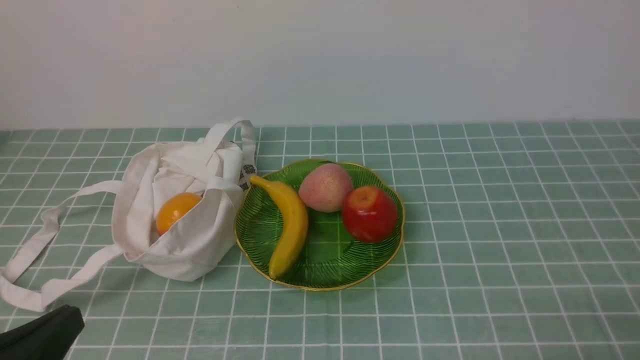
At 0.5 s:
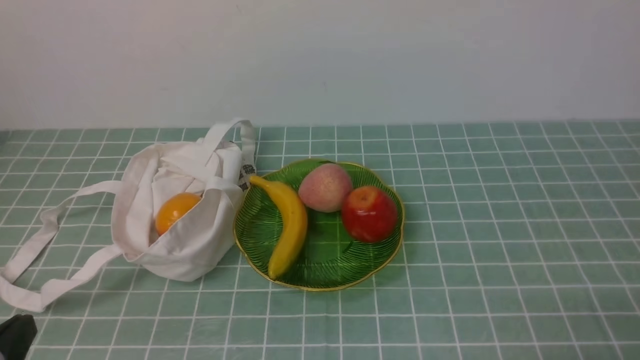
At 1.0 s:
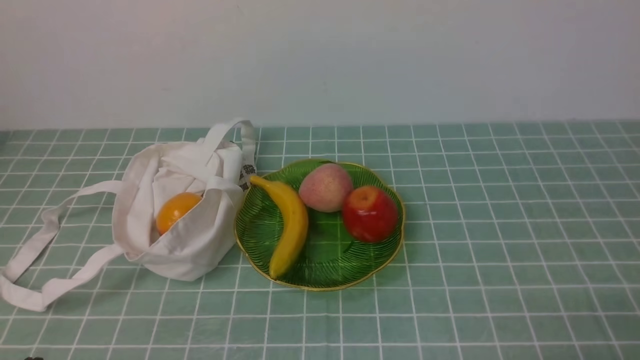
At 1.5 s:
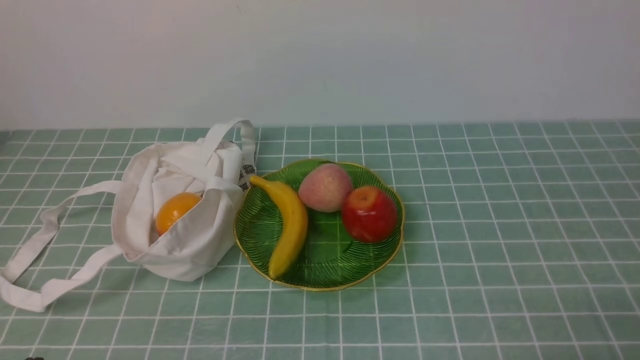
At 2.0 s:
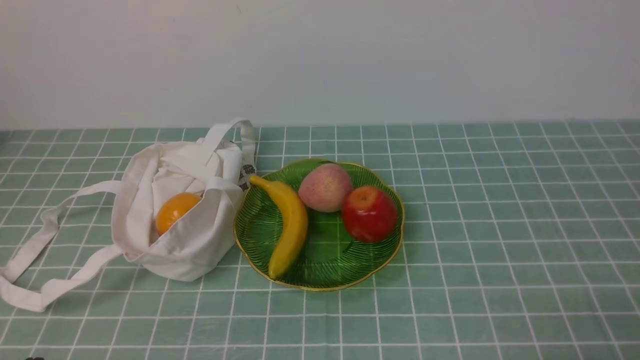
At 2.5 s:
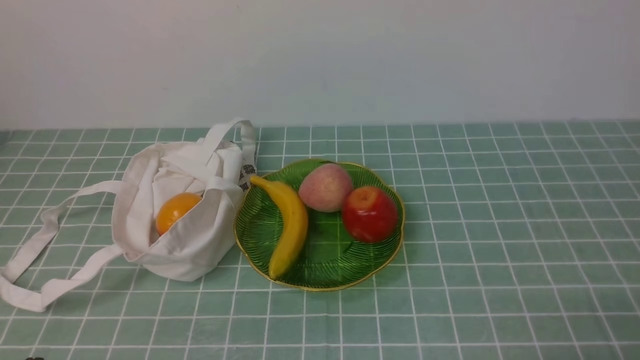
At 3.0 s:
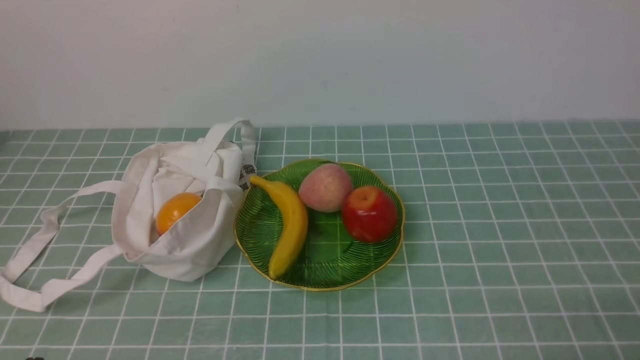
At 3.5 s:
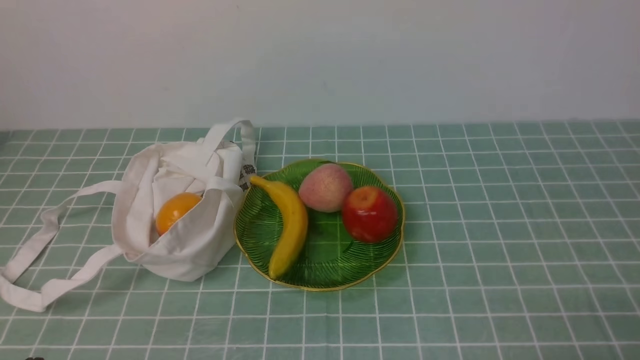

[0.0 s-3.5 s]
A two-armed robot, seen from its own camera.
0.0 to 2.0 s: The left gripper travels downward by approximately 5 cm.
2.0 to 3.5 s: Both grippers stay about where they are.

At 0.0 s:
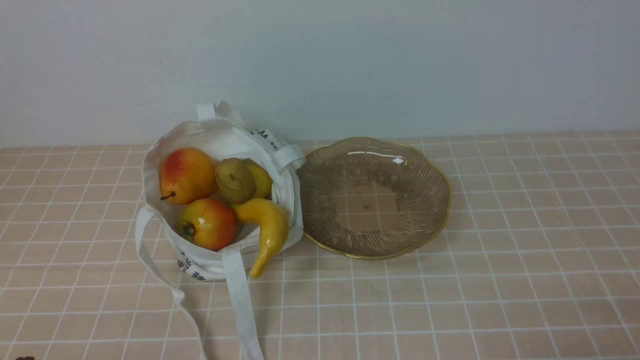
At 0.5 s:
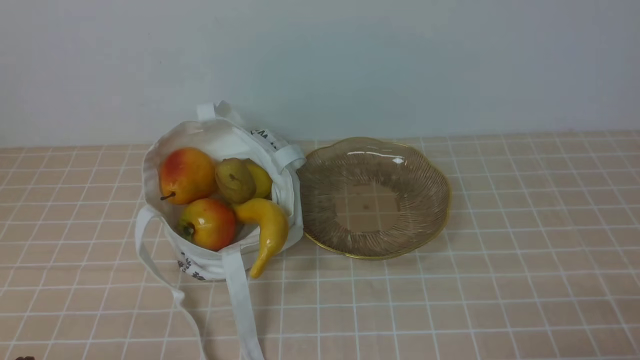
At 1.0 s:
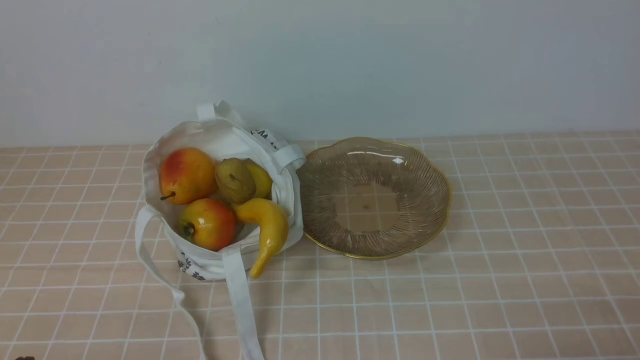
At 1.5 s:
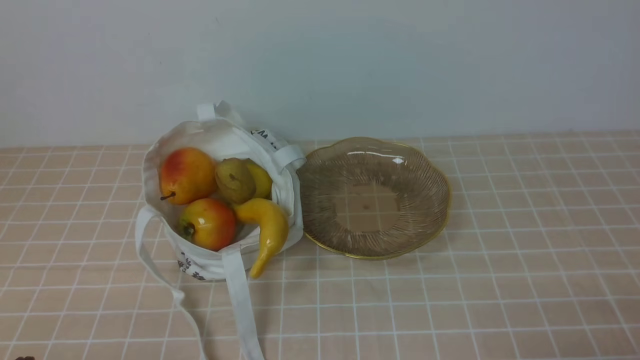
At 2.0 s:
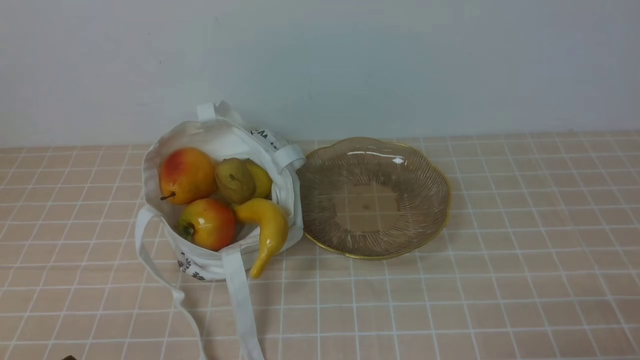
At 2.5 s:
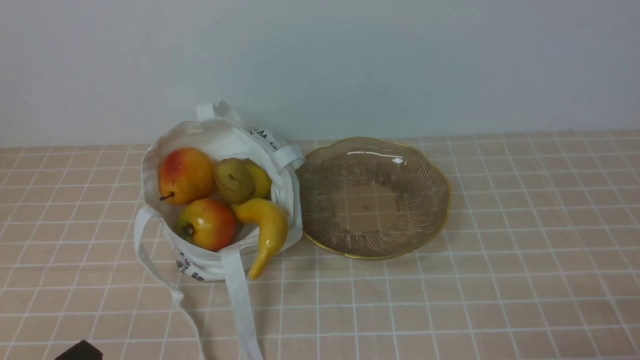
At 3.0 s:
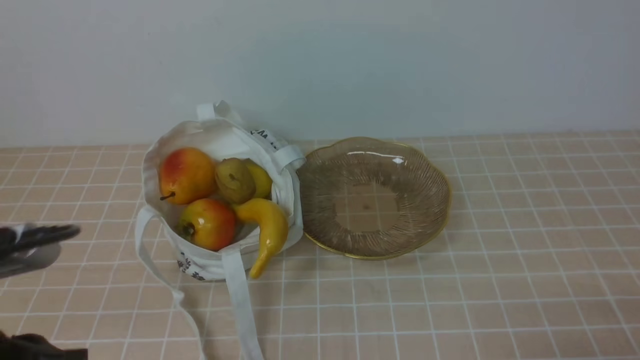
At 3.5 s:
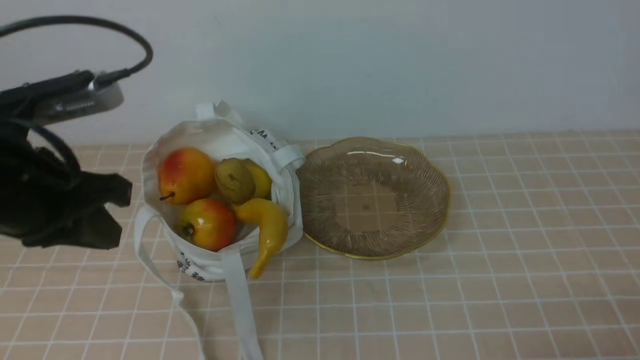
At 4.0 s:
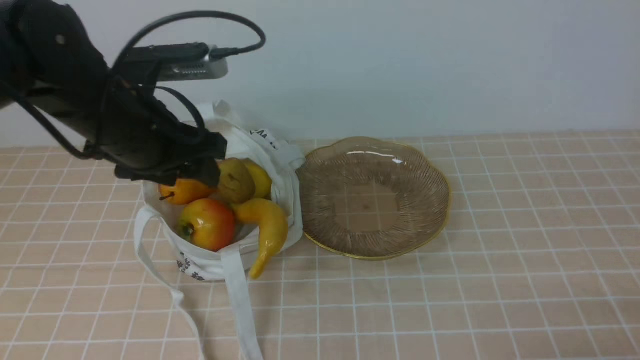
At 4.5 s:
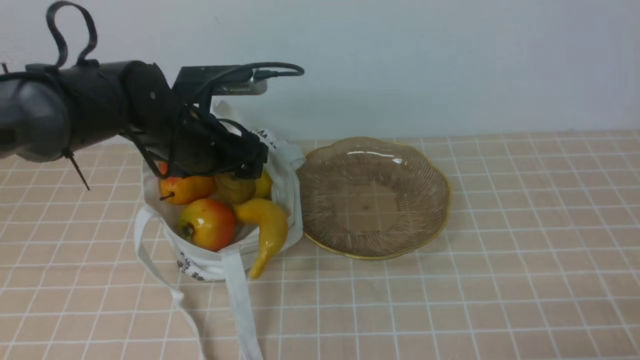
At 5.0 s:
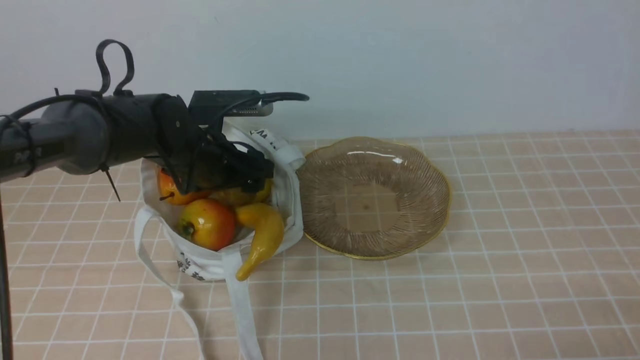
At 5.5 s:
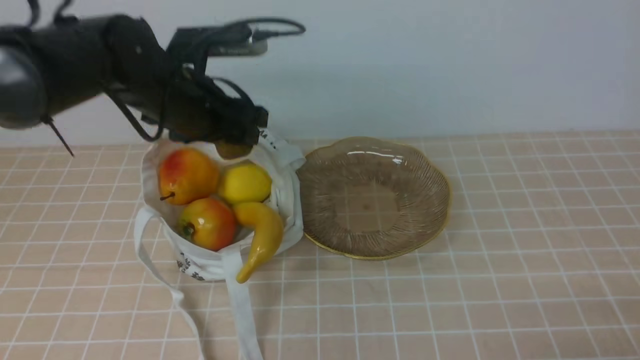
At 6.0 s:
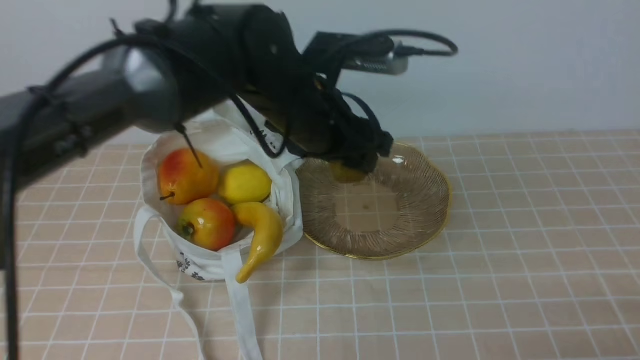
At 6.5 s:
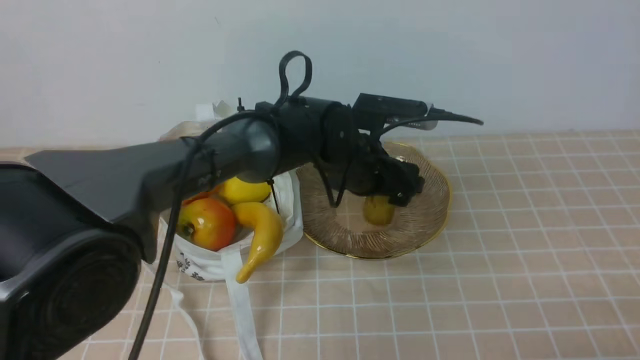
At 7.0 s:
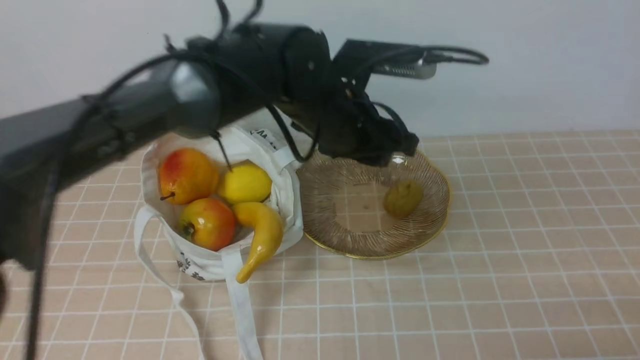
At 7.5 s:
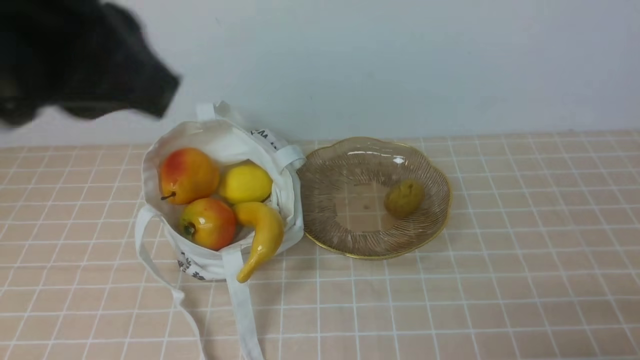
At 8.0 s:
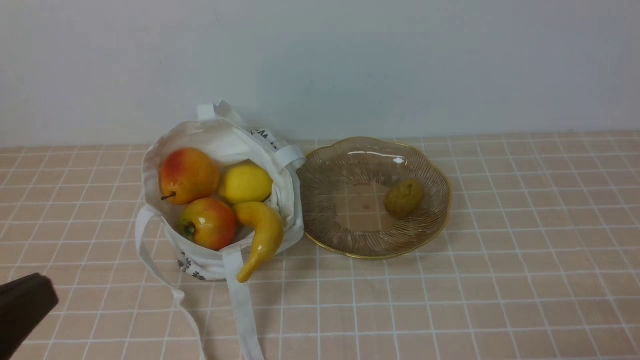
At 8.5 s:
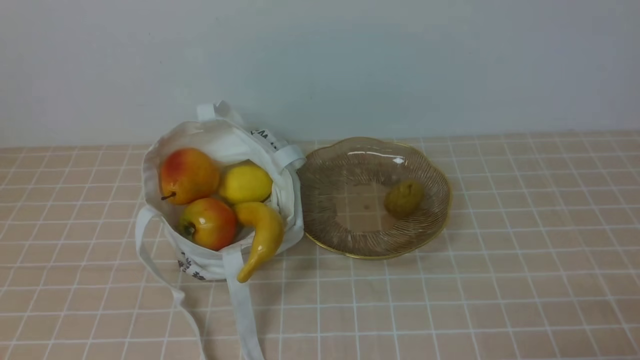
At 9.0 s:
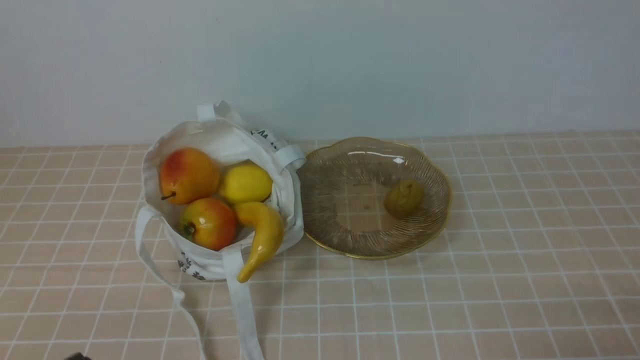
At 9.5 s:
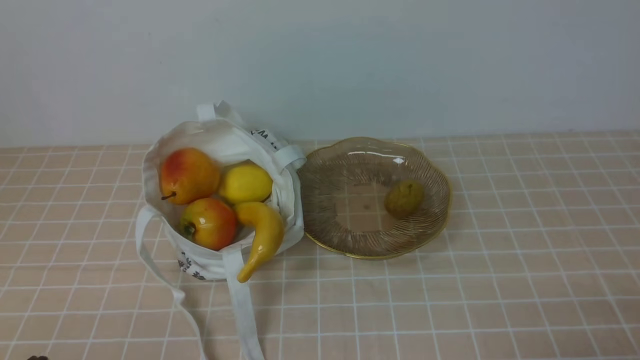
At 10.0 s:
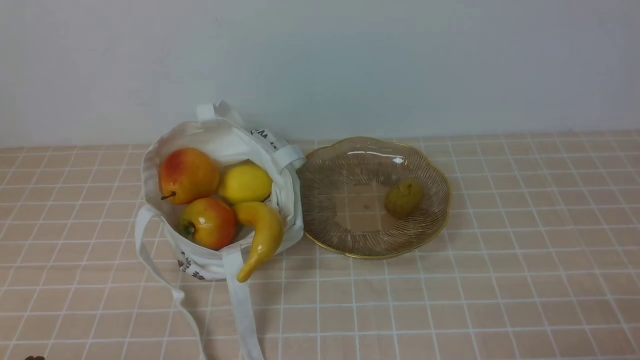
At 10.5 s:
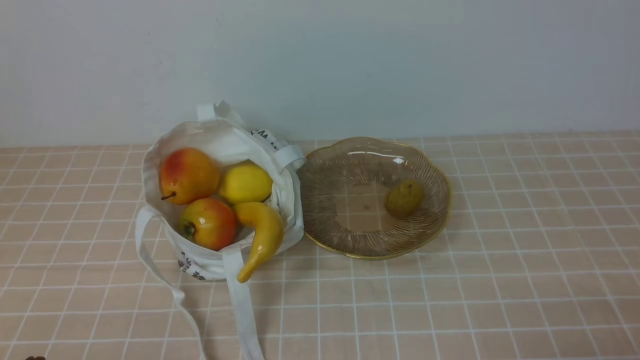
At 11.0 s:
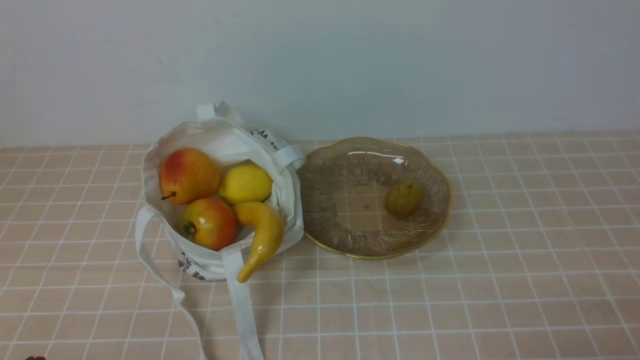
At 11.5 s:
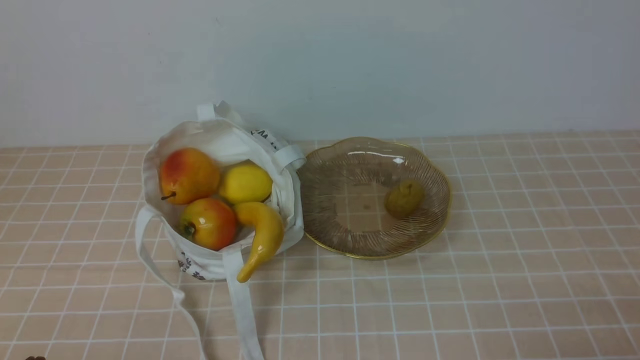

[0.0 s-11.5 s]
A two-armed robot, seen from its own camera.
Step, 0.0 to 5.5 s: use the left arm to grab a kiwi from the bag.
Step, 6.0 to 6.5 s: use the left arm to put the kiwi into the empty plate on the right.
2.0 to 4.0 s: The left gripper moves forward and upward, some 30 cm, and opens its fingers.
4.0 to 6.0 s: The left gripper shifts approximately 15 cm to the right.
6.0 to 7.5 s: The left gripper is displaced backward, upward and to the left by about 30 cm, and closes up.
7.5 to 9.5 s: The left gripper goes approximately 30 cm downward and backward.
9.5 to 11.5 s: Both grippers stay about where they are.
